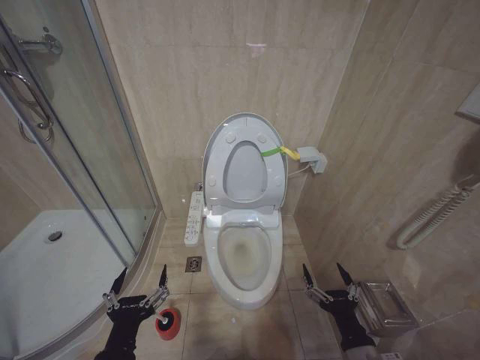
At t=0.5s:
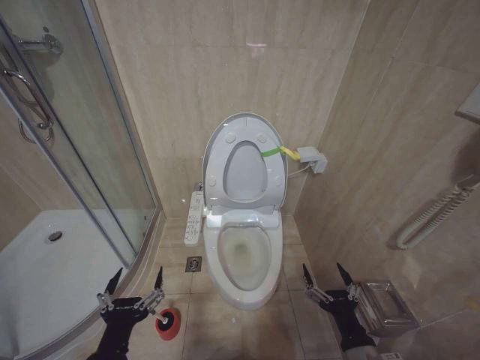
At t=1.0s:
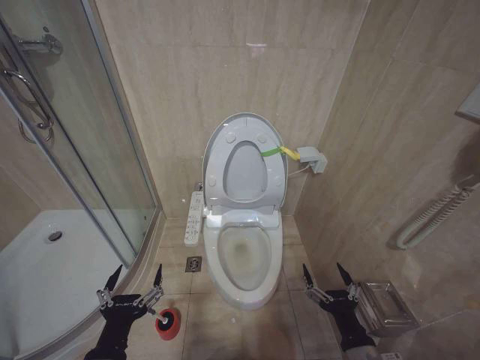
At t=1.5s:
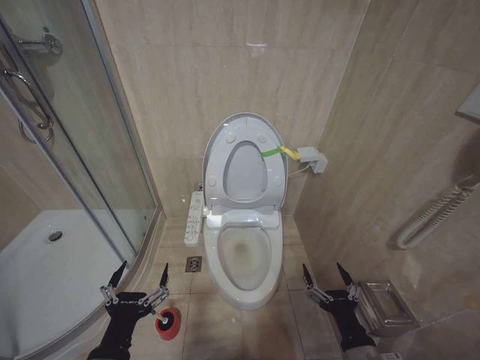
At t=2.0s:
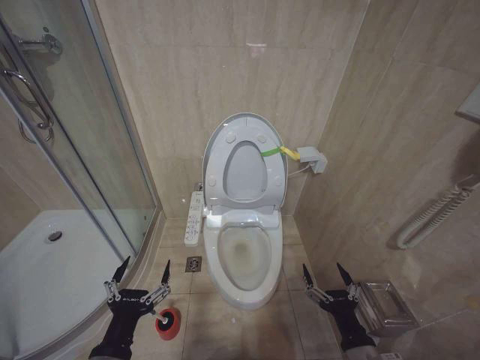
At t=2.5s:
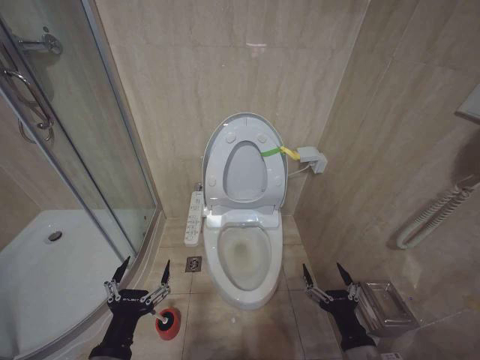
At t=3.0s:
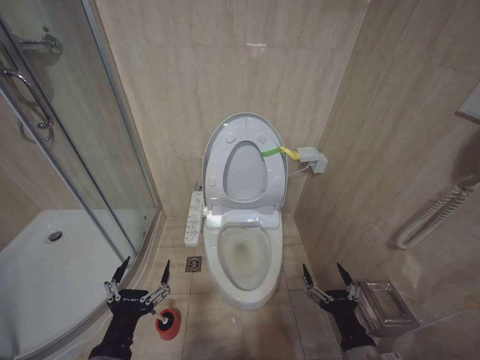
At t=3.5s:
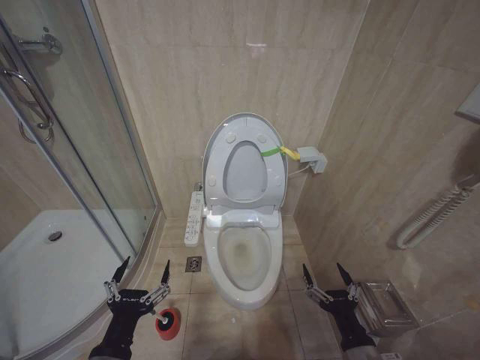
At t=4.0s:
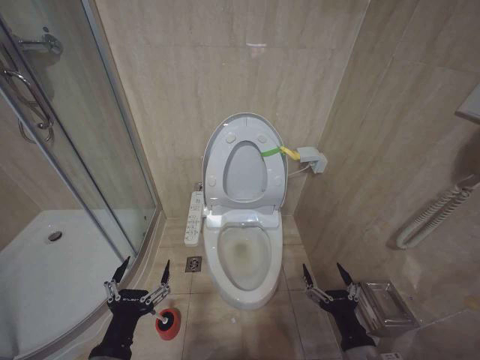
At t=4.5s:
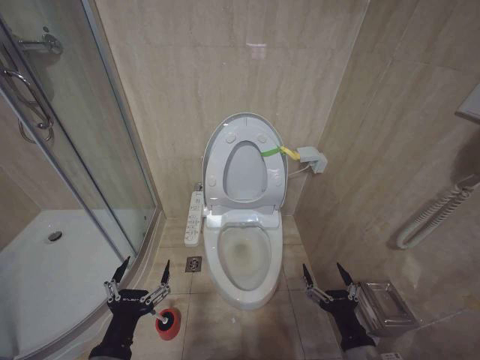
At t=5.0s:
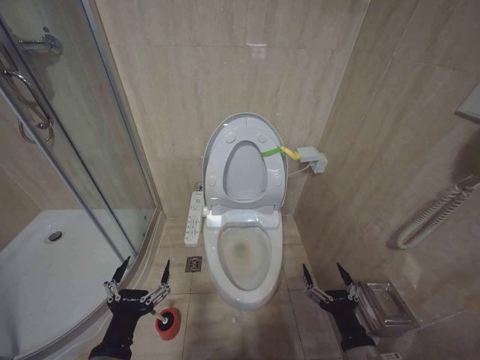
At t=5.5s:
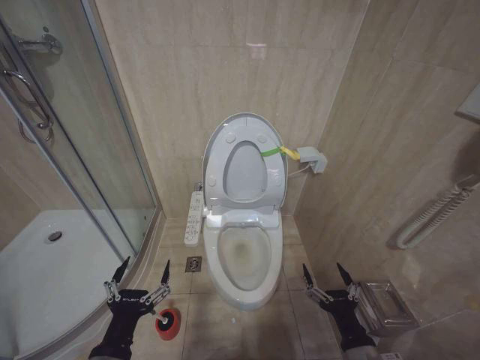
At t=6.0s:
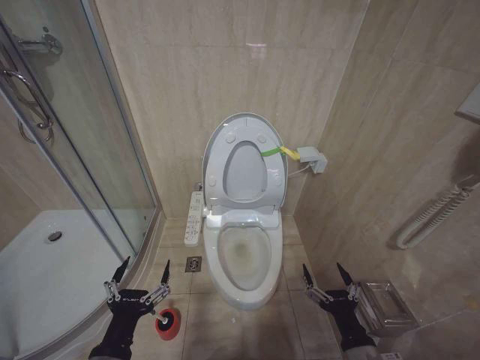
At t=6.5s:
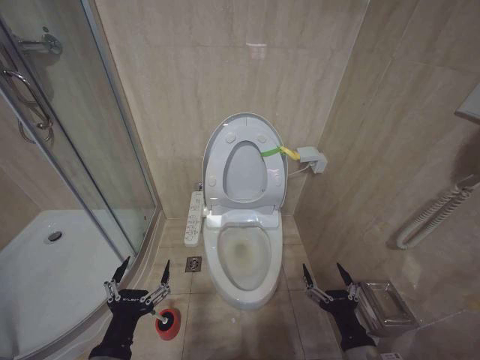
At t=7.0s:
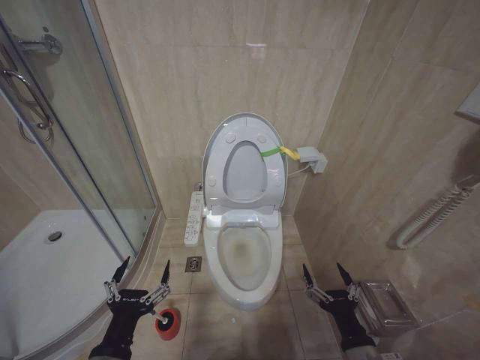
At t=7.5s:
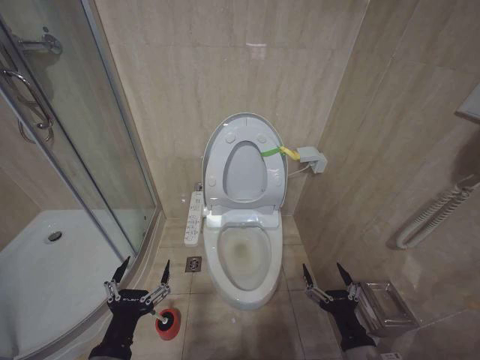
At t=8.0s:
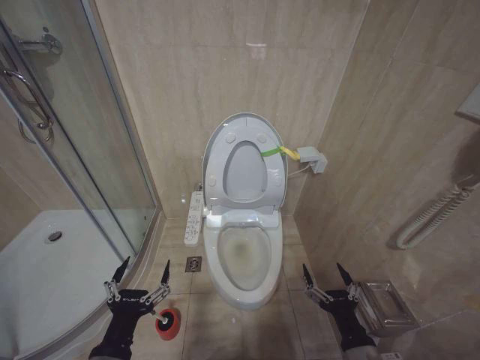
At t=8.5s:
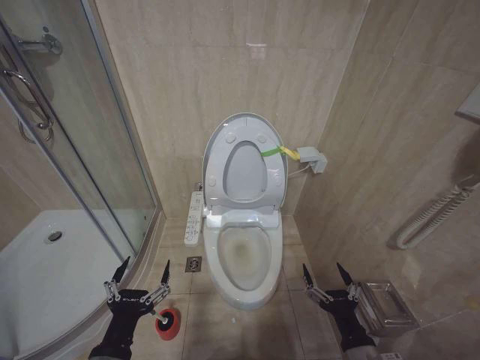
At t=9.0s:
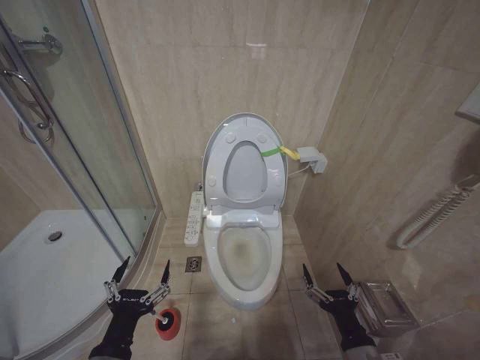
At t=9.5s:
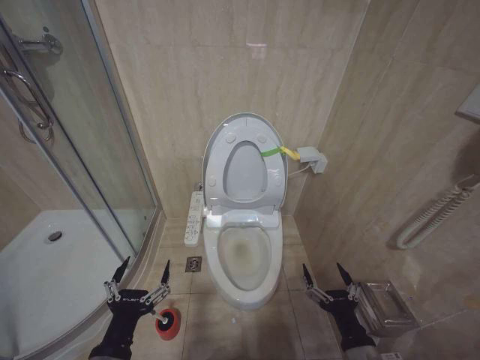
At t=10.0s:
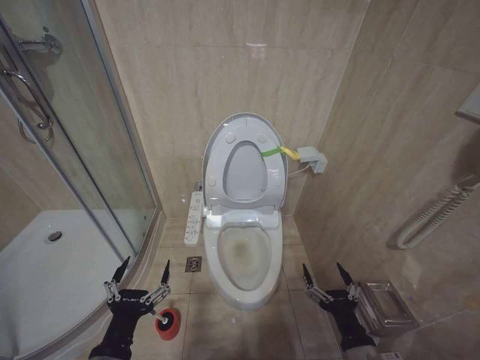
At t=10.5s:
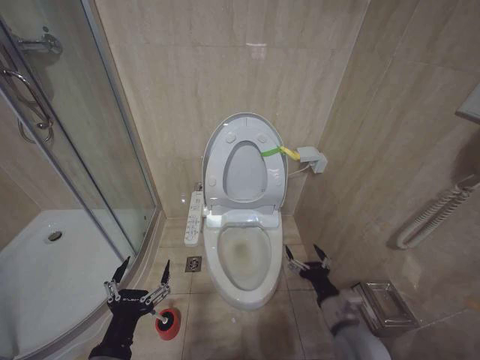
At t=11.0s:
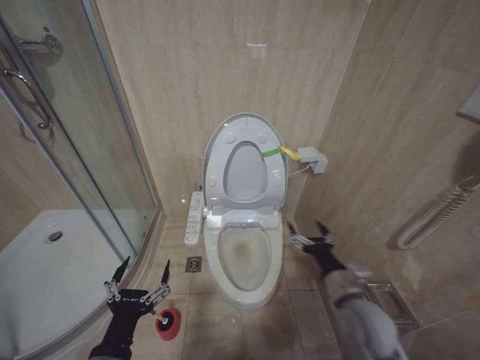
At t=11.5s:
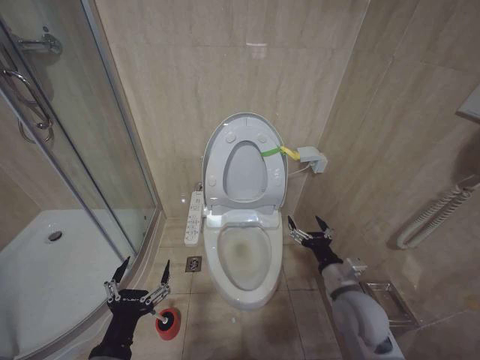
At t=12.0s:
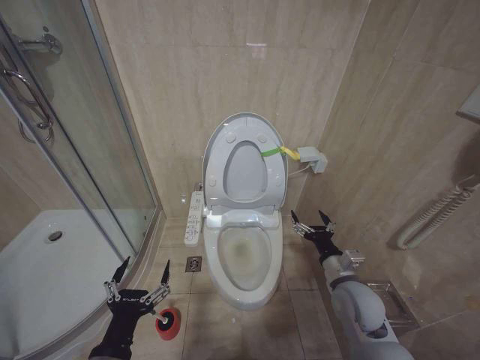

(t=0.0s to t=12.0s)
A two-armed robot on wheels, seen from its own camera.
Task of the whole recording: Open the toilet lid, clean the toilet bowl with a toilet brush, close the toilet lid, and flush.
t=0.0s - t=2.0s: The grippers make only small movements.
t=2.0s - t=10.0s: Neither gripper changes place.
t=10.0s - t=12.0s: The right gripper travels forward by roughly 15 cm.

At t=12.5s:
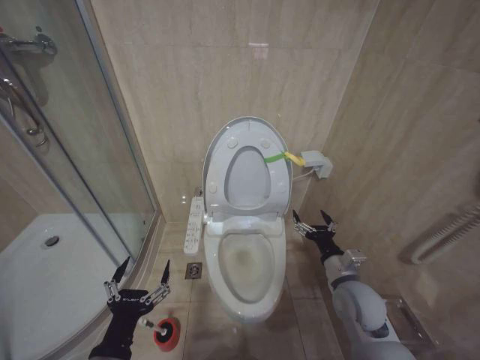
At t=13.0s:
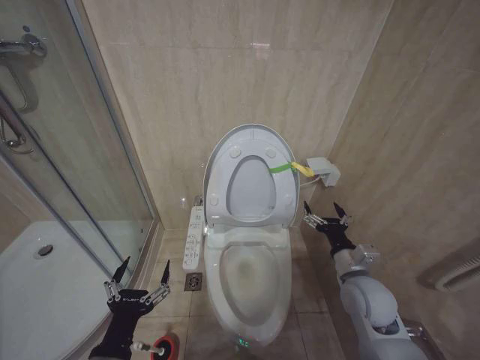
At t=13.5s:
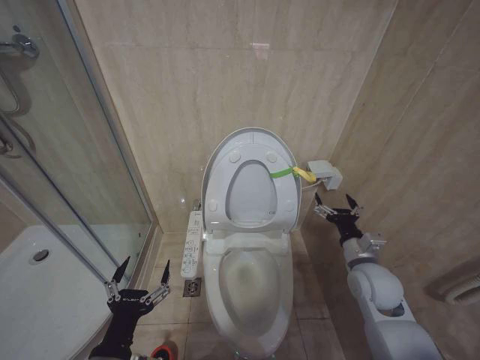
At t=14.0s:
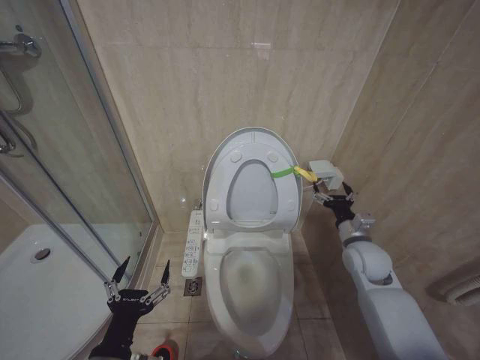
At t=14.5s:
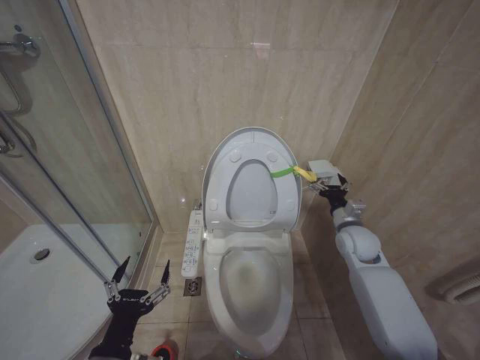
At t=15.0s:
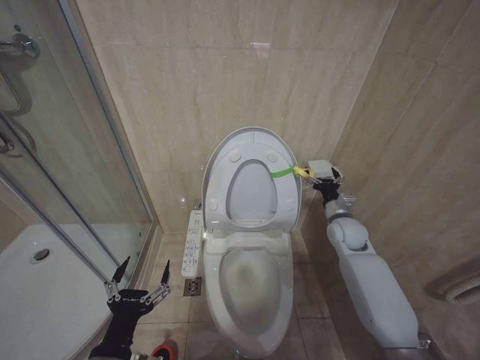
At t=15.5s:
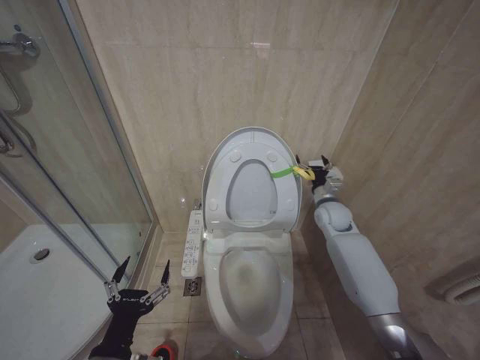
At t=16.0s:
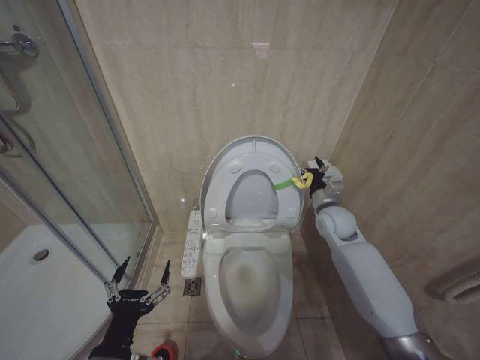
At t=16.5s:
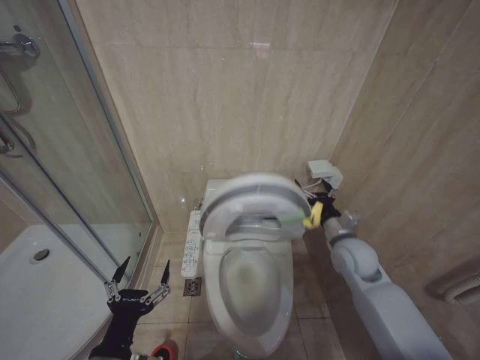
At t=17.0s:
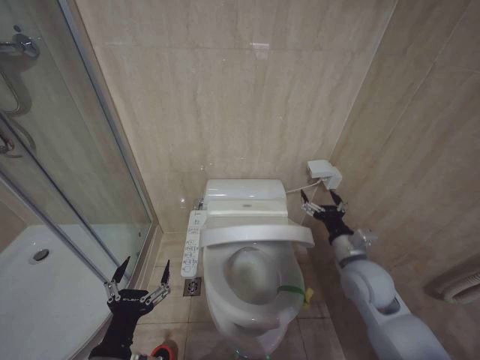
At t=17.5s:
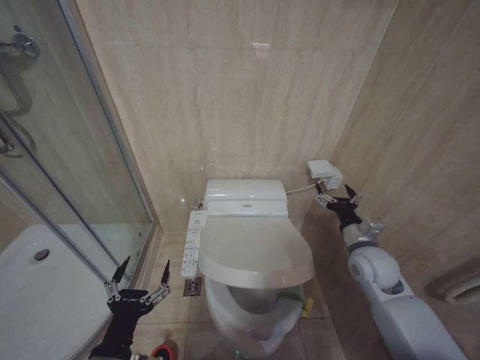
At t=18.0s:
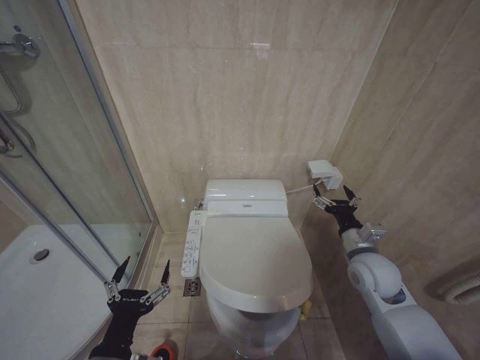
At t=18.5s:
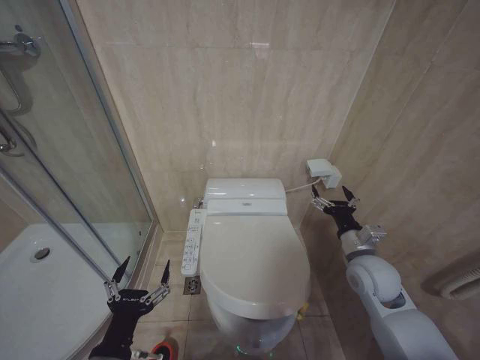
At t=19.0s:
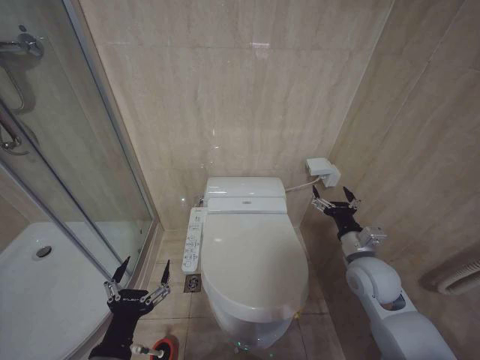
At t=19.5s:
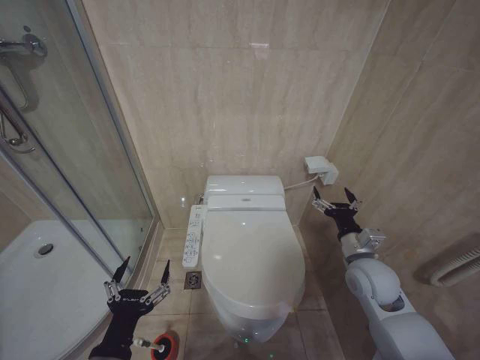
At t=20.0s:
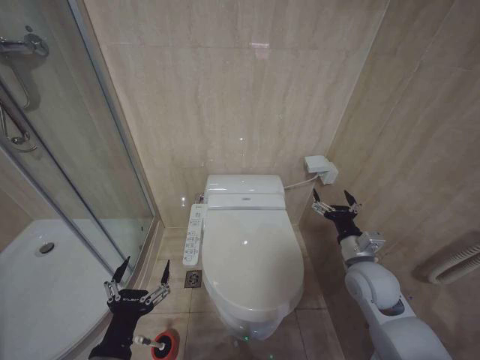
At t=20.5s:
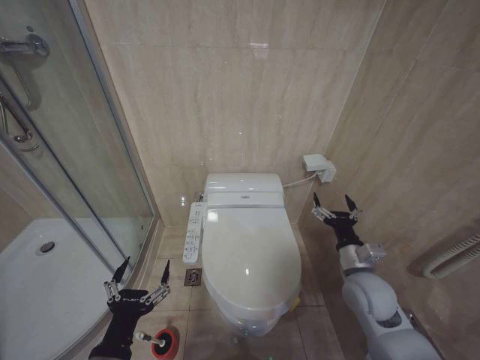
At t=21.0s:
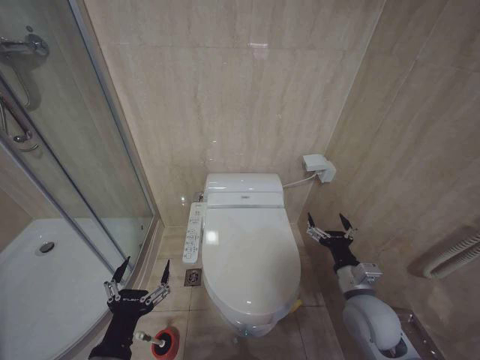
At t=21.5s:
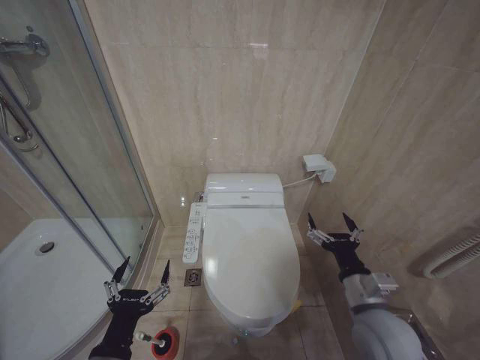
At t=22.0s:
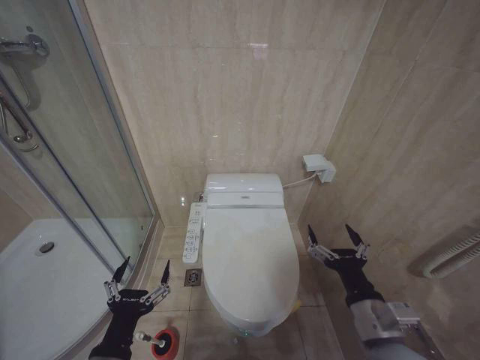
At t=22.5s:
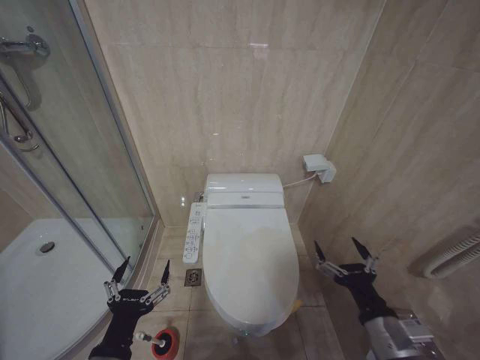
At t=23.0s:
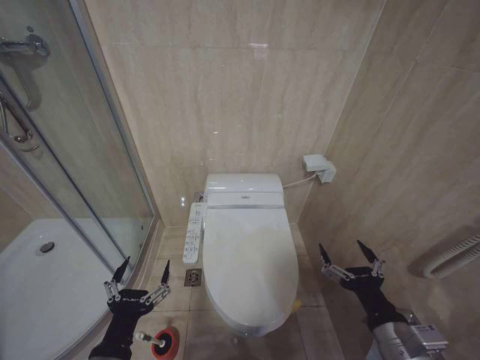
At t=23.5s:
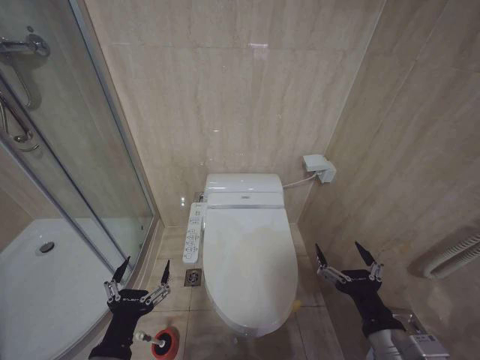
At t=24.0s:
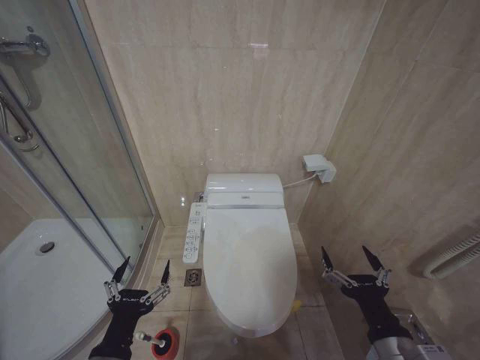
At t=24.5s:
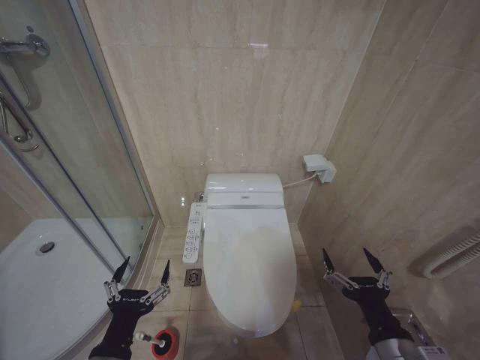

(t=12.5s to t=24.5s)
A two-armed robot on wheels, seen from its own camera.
Task of the whole recording: Open the toilet lid, clean the toilet bowl with a toilet brush, close the toilet lid, and flush.
t=12.5s - t=14.5s: The right gripper moves forward and to the right, some 15 cm.
t=14.5s - t=16.5s: The right gripper goes forward and returns, some 10 cm each way.
t=16.5s - t=18.5s: The right gripper goes some 5 cm backward.
t=18.5s - t=20.5s: The grippers move only a little.
t=20.5s - t=22.5s: The right gripper moves backward, roughly 15 cm.
t=22.5s - t=24.5s: The grippers move only a little.

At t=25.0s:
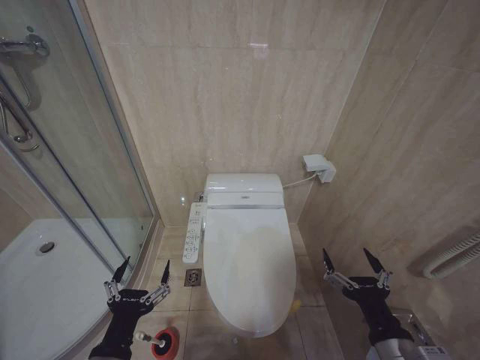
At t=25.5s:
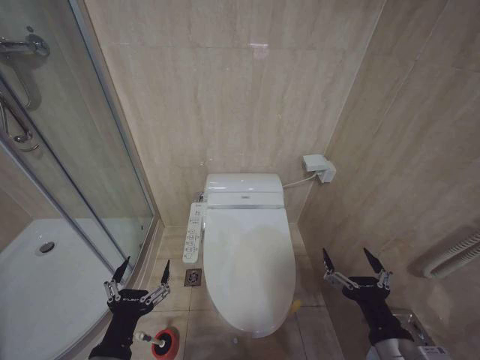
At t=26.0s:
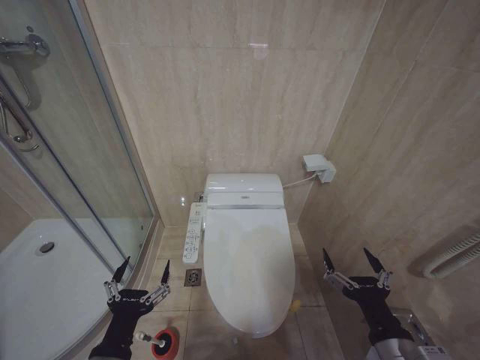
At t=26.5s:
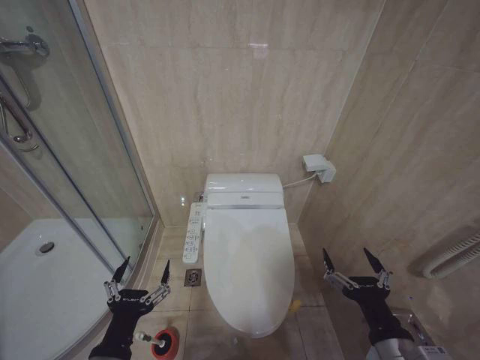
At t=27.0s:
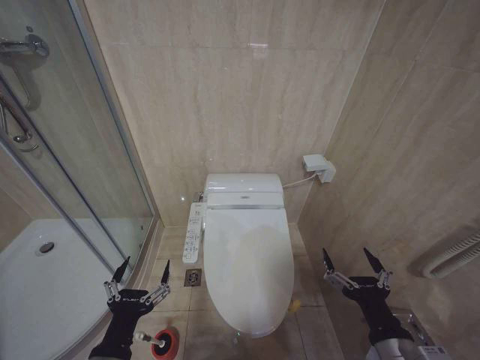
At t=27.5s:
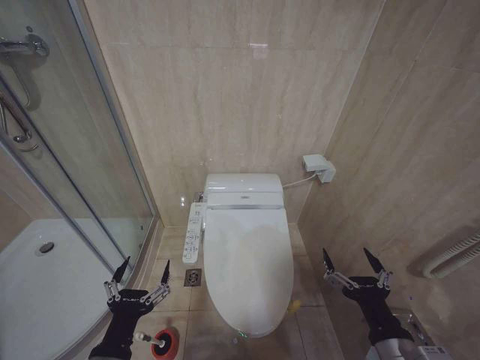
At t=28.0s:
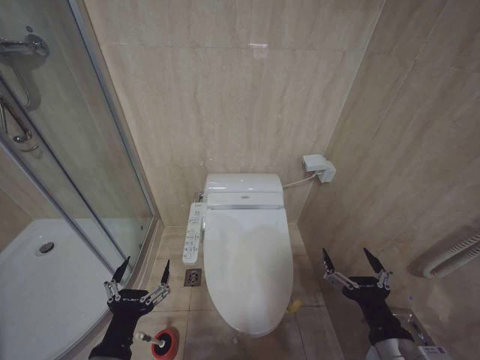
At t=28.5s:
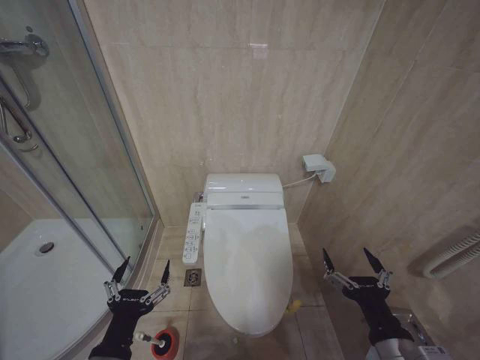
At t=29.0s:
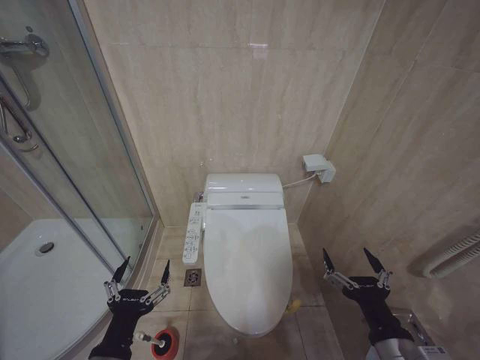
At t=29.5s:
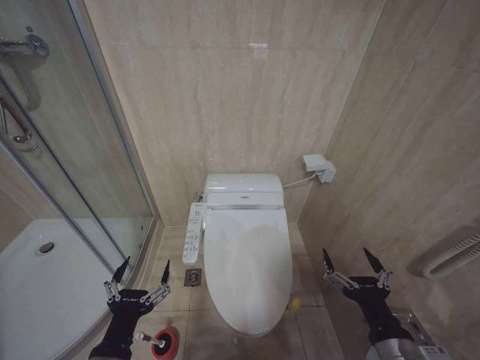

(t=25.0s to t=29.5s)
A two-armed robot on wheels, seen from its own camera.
Task of the whole recording: Open the toilet lid, clean the toilet bowl with a toilet brush, close the toilet lid, and flush.
t=25.0s - t=29.5s: Both grippers stay about where they are.
